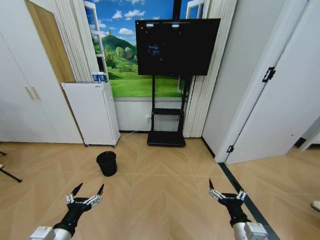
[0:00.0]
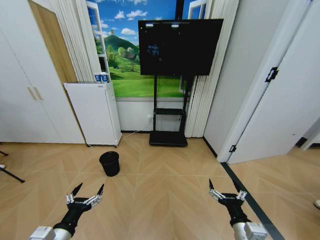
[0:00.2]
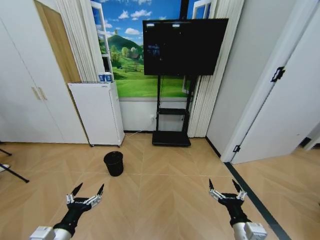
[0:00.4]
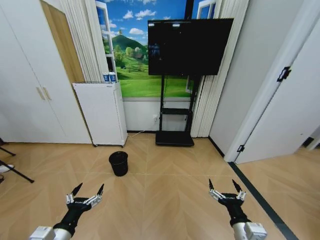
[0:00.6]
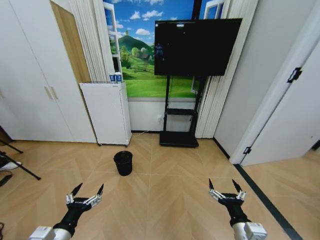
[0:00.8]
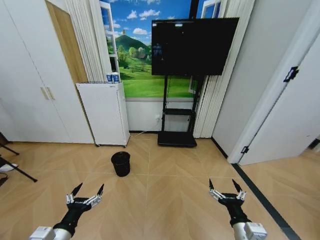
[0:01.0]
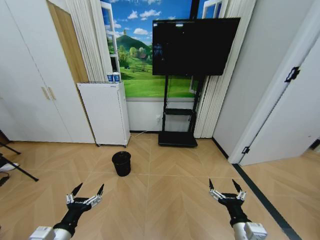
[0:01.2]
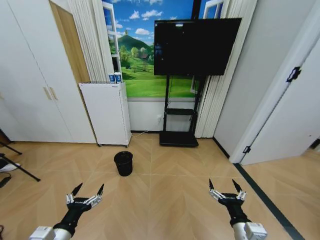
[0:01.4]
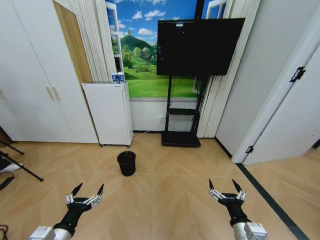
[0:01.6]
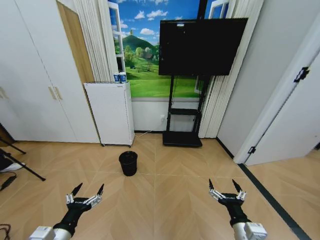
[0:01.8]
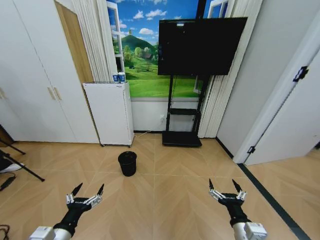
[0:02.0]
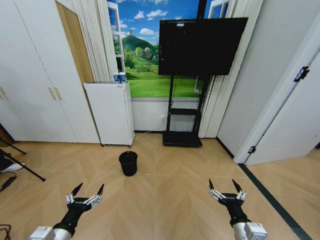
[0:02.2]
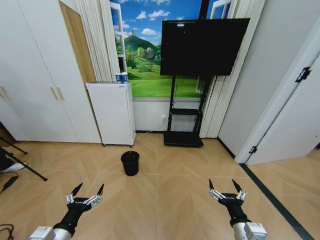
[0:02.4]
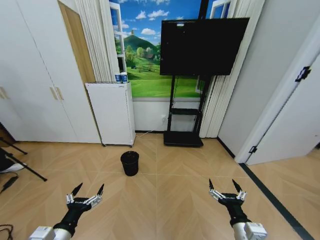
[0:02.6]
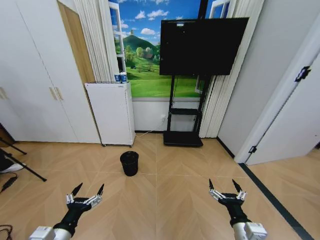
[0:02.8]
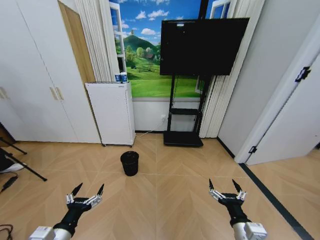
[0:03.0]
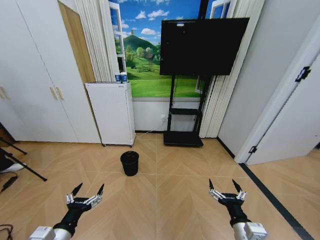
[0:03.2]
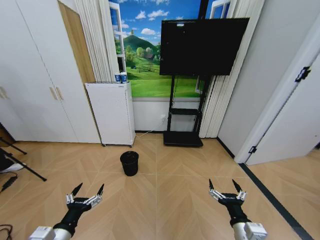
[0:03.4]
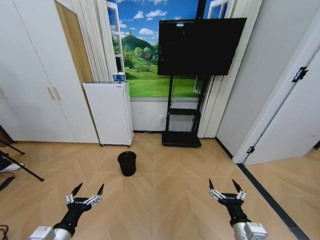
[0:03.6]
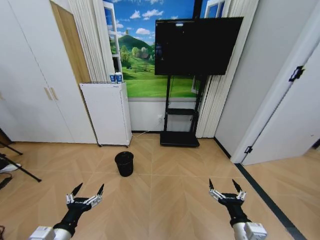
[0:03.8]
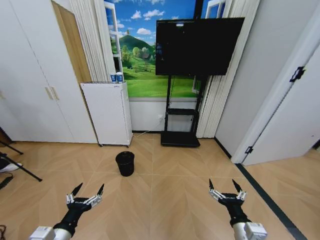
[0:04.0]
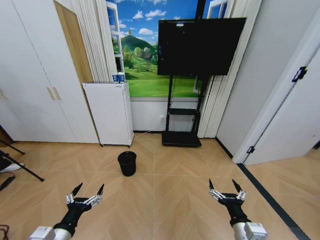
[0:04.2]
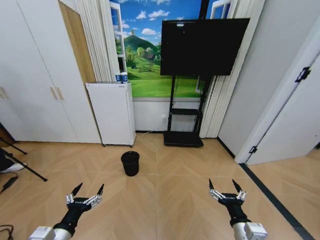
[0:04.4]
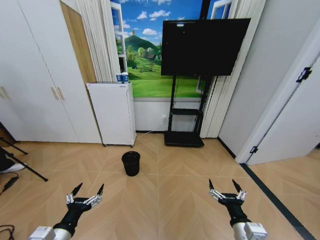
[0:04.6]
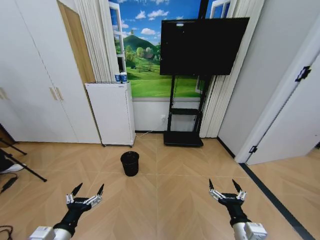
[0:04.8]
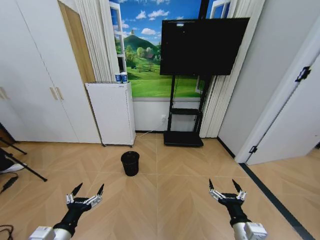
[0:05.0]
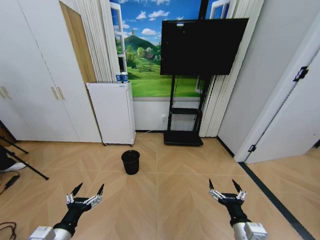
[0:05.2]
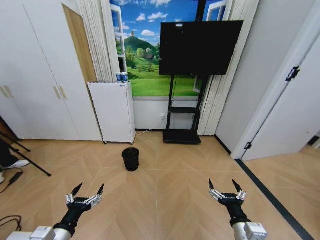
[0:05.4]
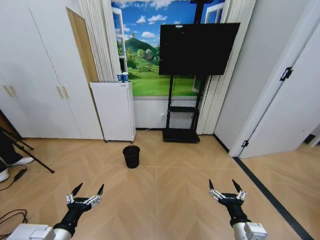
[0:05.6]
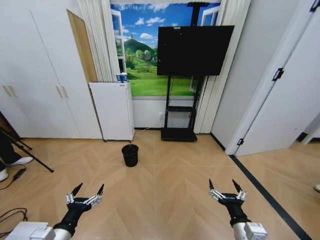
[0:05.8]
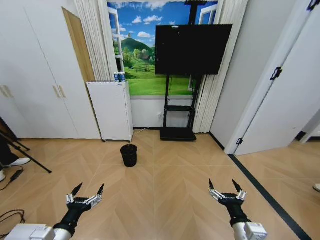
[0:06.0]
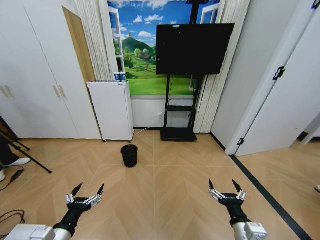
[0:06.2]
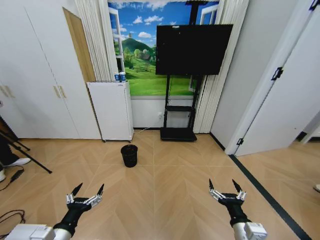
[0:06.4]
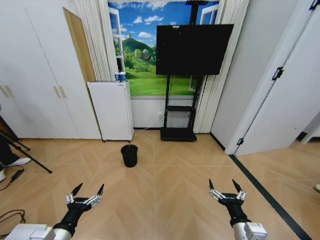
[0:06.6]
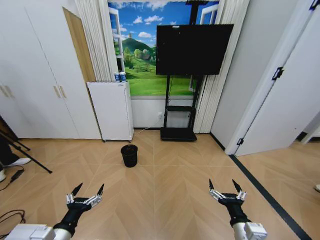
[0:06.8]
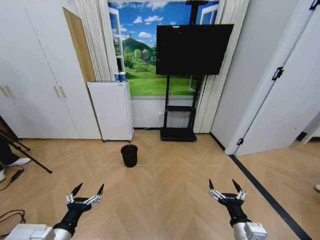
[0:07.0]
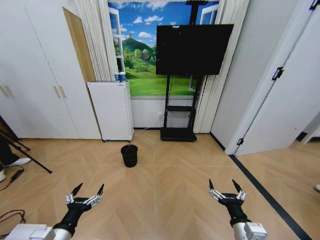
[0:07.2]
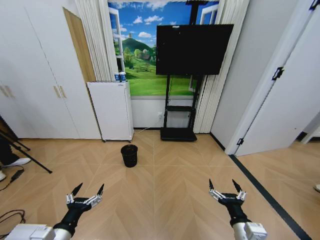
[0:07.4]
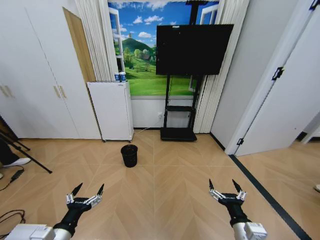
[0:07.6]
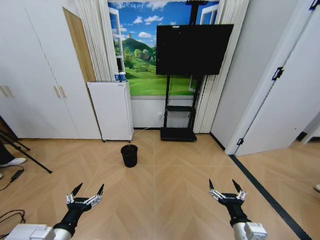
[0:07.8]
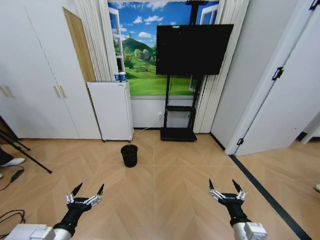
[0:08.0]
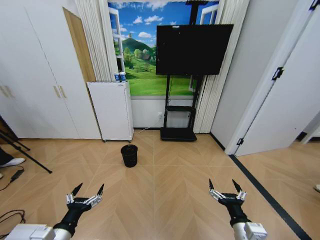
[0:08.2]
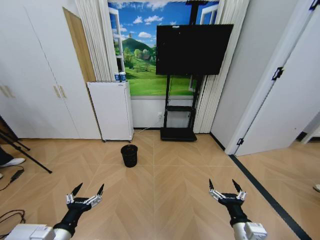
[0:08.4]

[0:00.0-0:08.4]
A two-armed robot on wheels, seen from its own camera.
Task of the whole recording: Pick up the trash bin and place the garbage on the floor into it.
0:01.4 to 0:08.4: Neither gripper changes place.

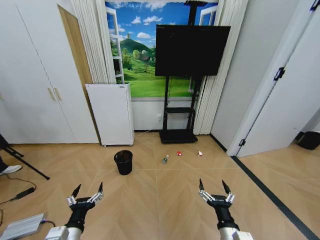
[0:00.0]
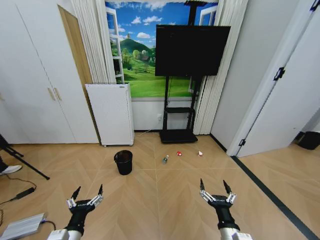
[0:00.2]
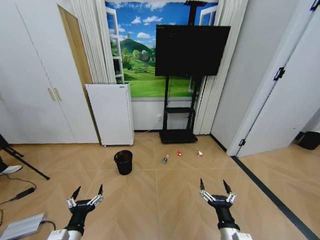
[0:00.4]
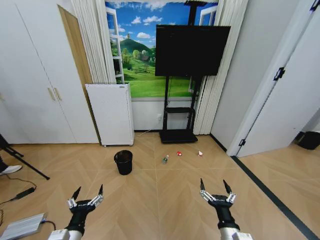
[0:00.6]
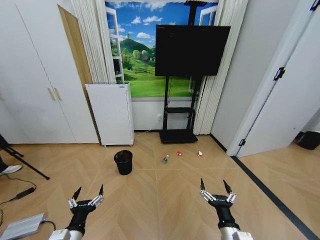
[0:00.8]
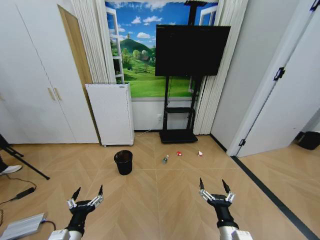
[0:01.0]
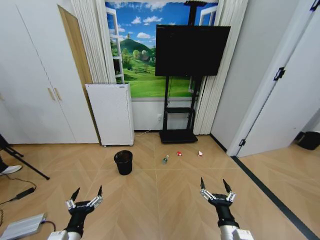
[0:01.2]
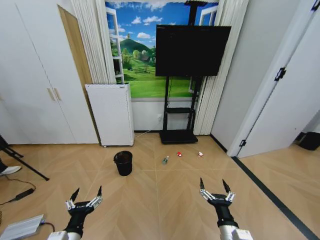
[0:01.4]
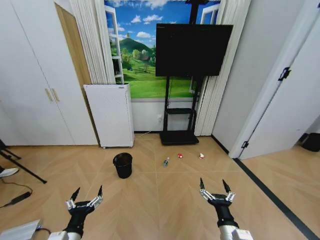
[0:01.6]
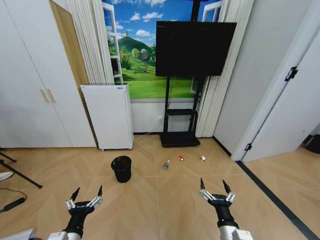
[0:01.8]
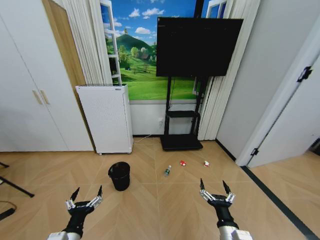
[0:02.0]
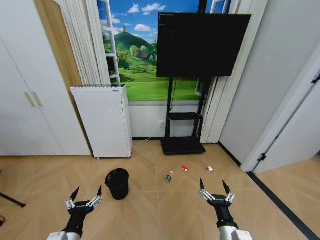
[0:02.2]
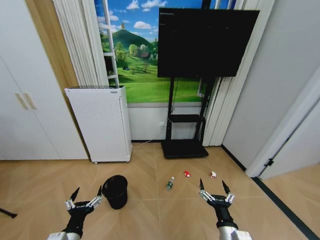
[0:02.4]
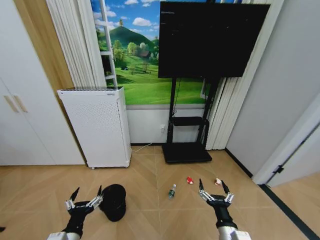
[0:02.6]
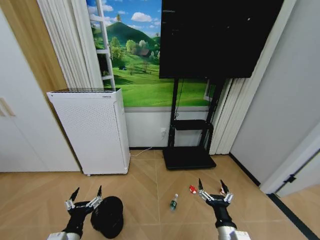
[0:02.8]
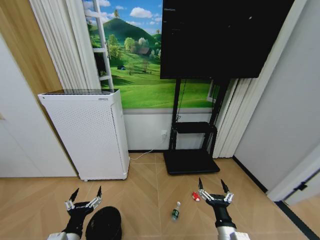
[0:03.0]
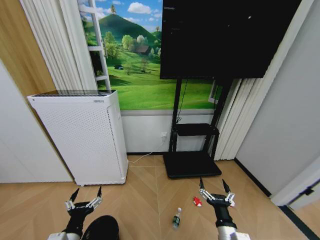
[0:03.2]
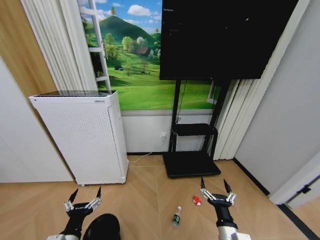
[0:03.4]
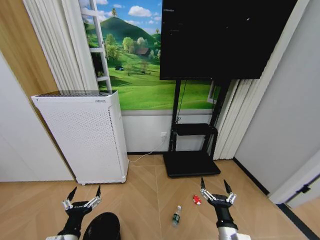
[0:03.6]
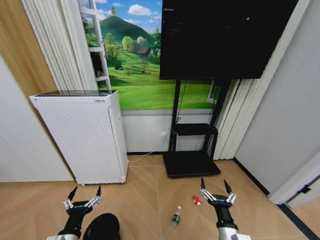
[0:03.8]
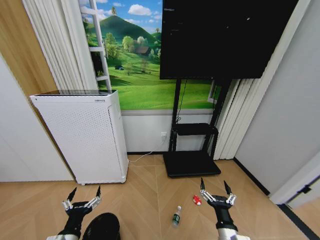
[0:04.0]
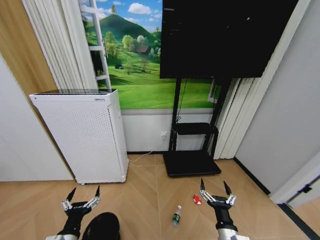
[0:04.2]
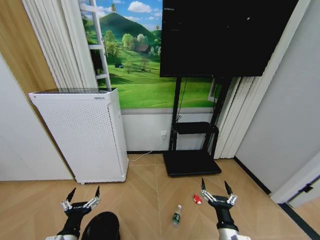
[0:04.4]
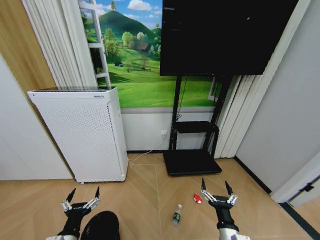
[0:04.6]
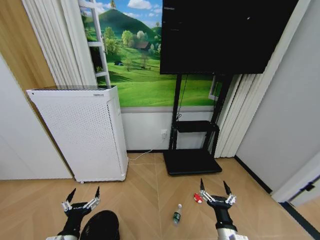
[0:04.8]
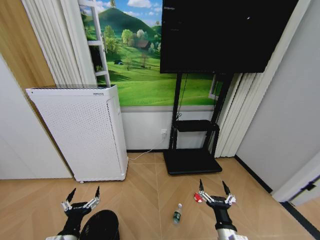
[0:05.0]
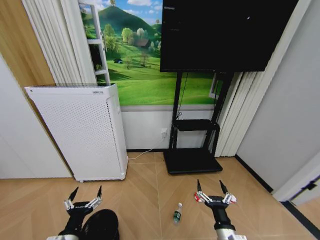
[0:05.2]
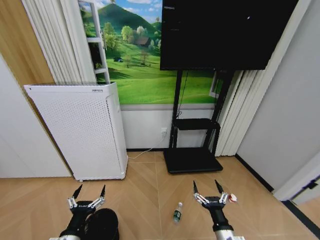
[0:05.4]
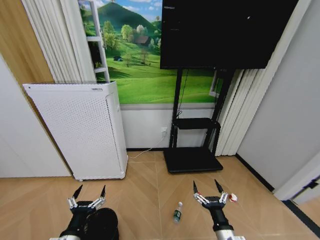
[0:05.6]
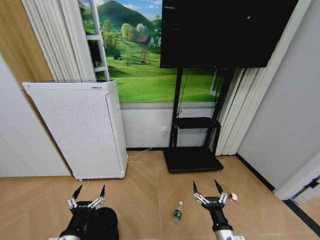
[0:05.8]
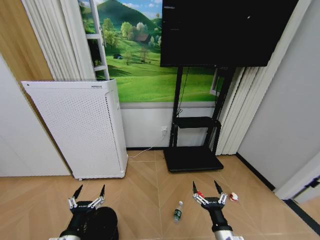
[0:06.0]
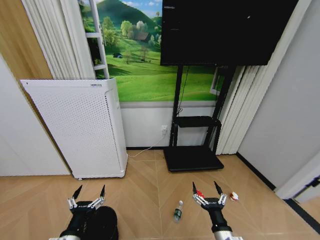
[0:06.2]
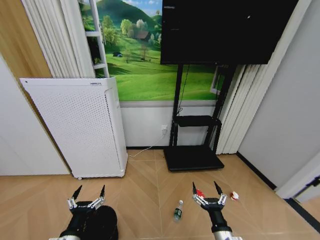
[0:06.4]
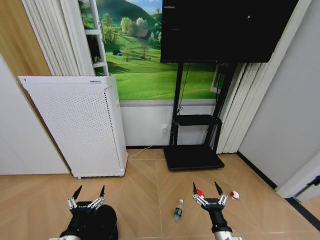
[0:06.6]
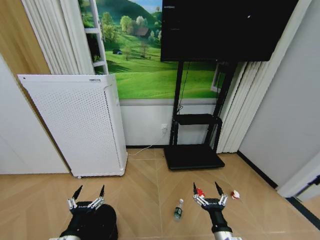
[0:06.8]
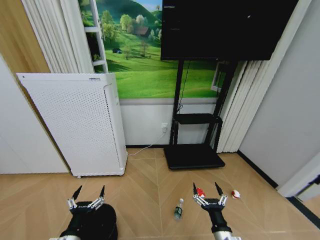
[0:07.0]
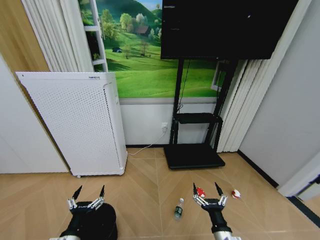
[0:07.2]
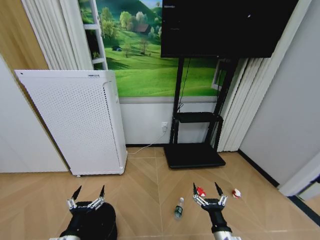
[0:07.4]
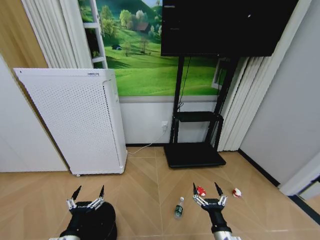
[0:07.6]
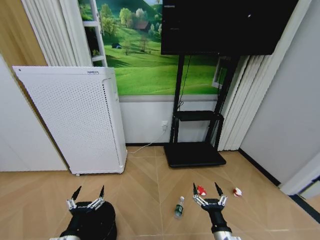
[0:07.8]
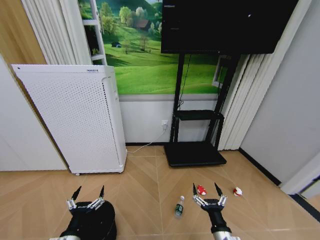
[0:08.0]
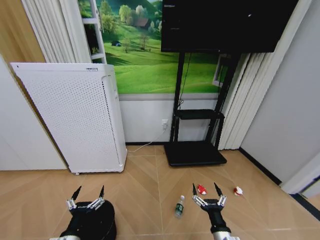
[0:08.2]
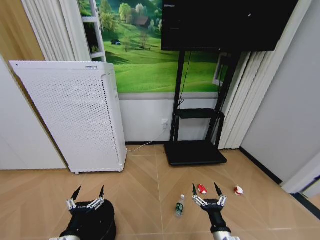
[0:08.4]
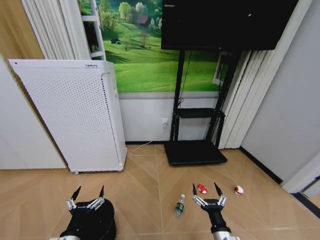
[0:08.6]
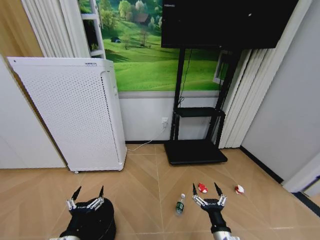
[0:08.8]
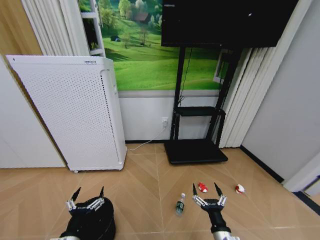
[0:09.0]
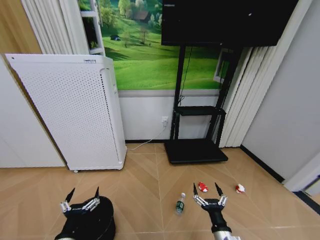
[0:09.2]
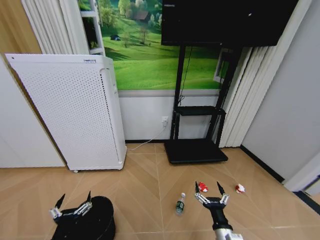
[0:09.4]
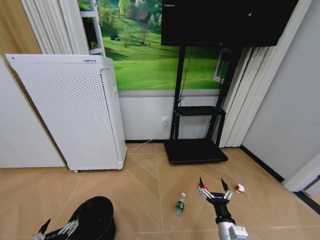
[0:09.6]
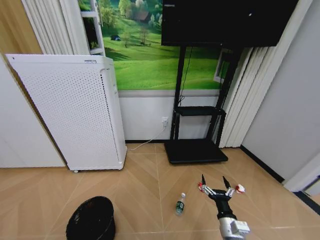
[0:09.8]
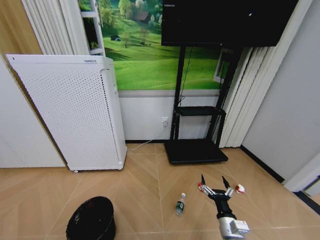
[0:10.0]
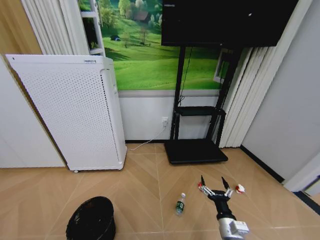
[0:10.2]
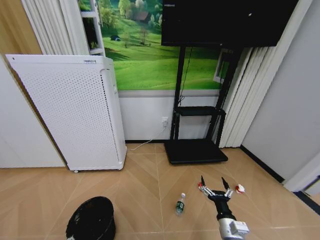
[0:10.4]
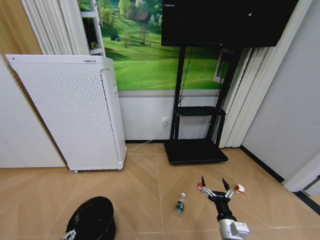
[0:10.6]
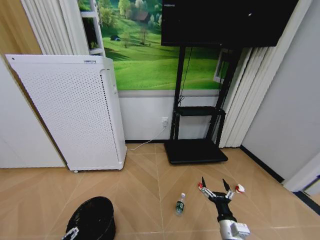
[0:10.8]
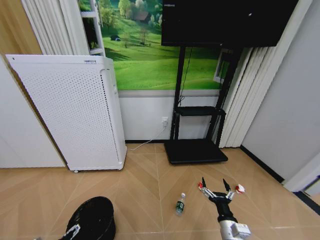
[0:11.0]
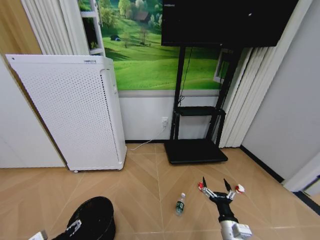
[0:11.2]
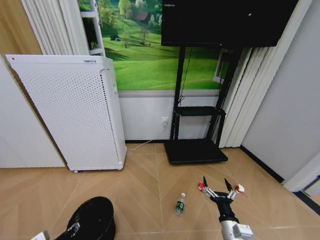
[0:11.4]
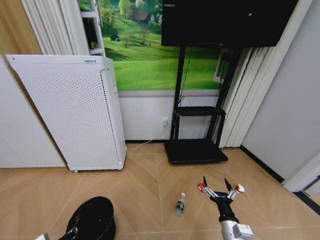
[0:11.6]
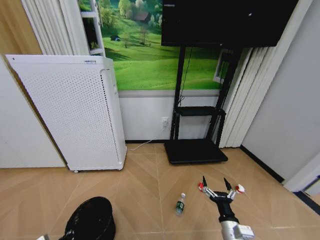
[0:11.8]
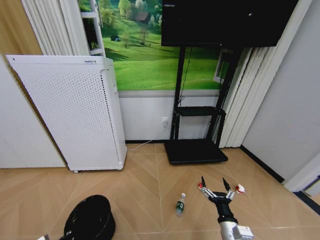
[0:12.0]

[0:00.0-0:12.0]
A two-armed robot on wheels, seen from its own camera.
Task of the whole recording: Pick up the trash bin and place the garbage on the floor into it.
0:03.0 to 0:04.4: Neither gripper changes place.
0:04.4 to 0:06.0: The grippers stay close to where they were, moving slightly.
0:06.0 to 0:09.0: Both grippers stay put.
0:09.0 to 0:10.4: The left gripper shifts some 10 cm to the left, downward and backward; the right gripper moves approximately 5 cm.
0:10.4 to 0:12.0: The left gripper heads forward, covering about 10 cm, and closes.

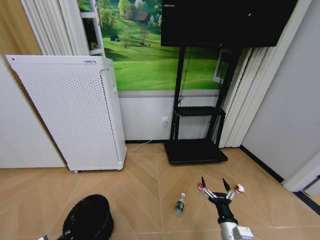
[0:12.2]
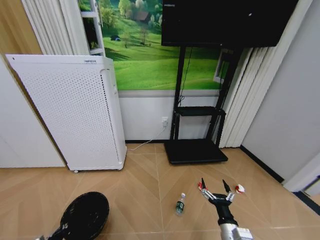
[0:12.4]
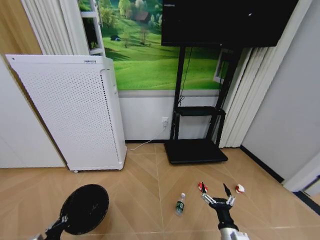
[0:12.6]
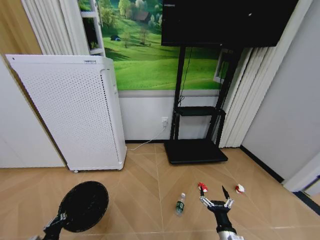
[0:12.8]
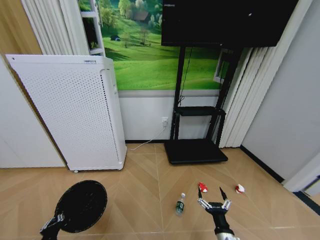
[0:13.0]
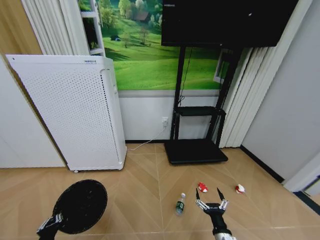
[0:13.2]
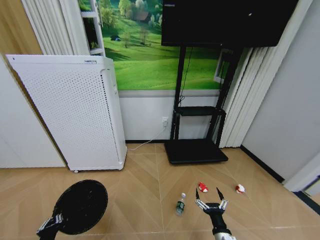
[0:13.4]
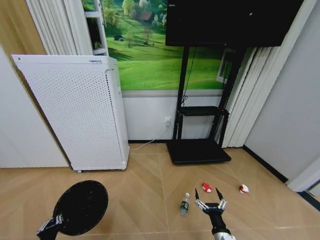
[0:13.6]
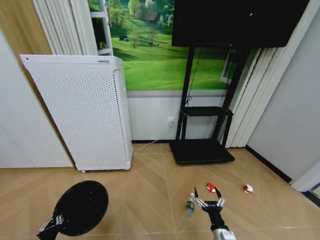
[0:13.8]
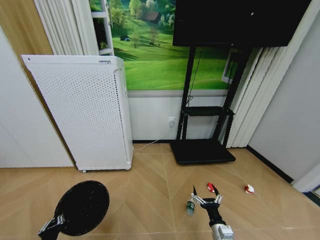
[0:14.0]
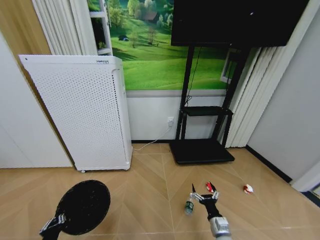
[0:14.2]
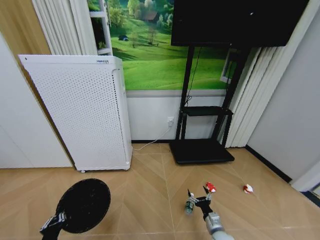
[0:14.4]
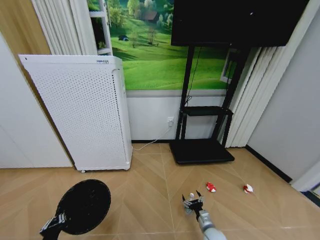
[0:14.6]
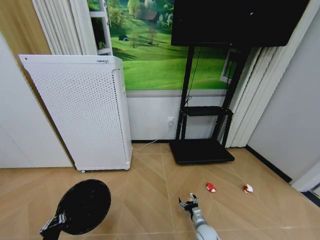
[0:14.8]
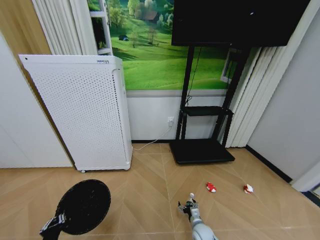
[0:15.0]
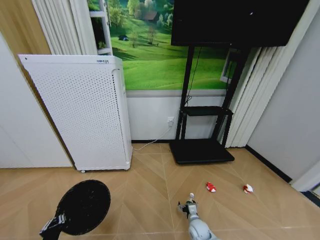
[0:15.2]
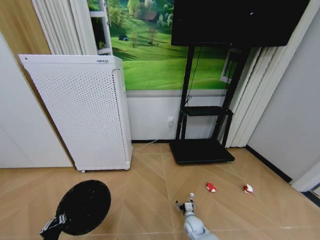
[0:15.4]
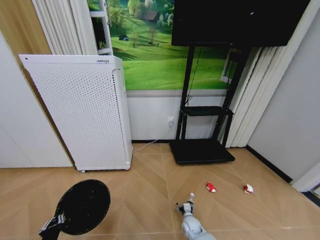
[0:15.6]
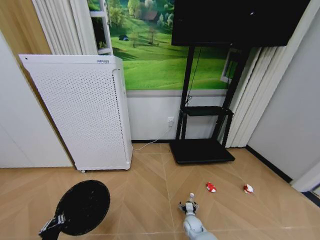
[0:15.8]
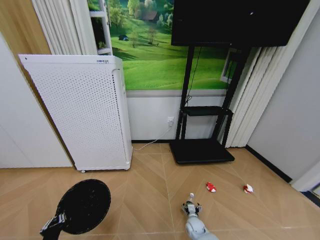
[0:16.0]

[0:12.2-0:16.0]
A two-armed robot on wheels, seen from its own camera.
Task of the whole recording: Pick up the trash bin and place the garbage on the floor into it.
0:12.2 to 0:13.4: The right gripper changes place by some 5 cm.
0:13.4 to 0:14.8: The right gripper shifts roughly 15 cm downward and forward.
0:14.8 to 0:16.0: The right gripper moves downward and forward, about 10 cm.
